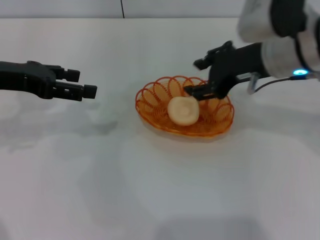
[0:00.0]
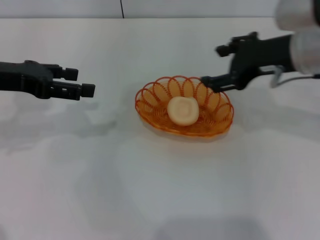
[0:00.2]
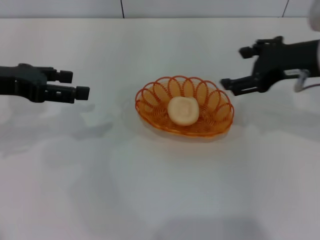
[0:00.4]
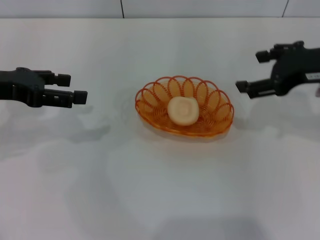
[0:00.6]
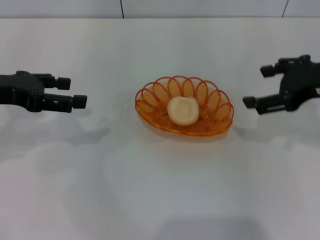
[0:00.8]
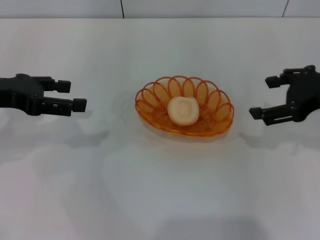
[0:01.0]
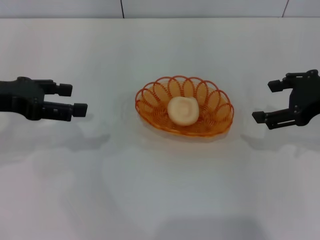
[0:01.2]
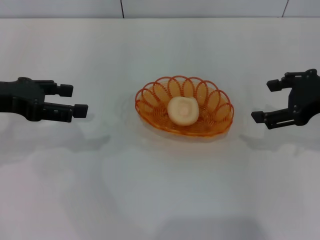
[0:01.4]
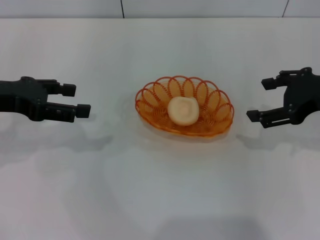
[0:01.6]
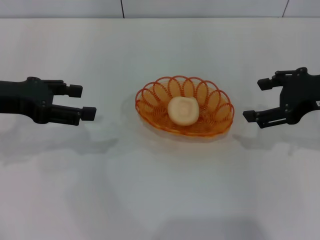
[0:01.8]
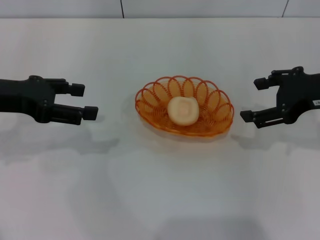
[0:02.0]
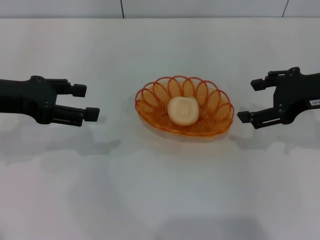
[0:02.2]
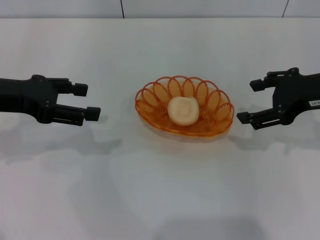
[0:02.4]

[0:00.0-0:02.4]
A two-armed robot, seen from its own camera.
0:00.0 to 0:01.2: The right gripper travels to the right by about 10 cm, and opens.
0:01.2 to 0:02.4: The grippers make only small movements.

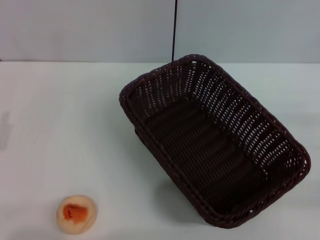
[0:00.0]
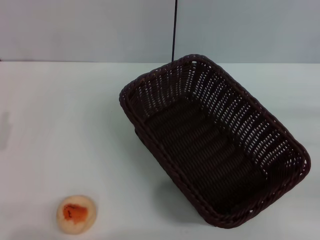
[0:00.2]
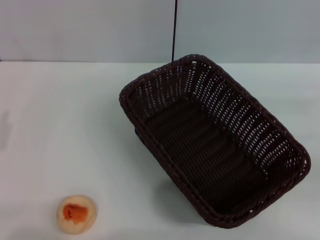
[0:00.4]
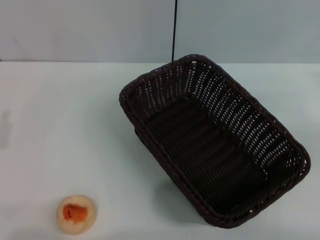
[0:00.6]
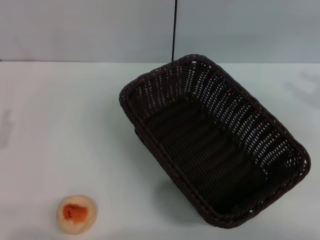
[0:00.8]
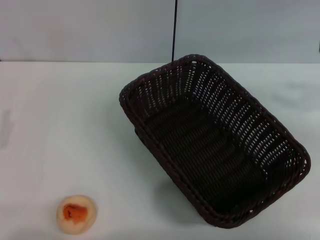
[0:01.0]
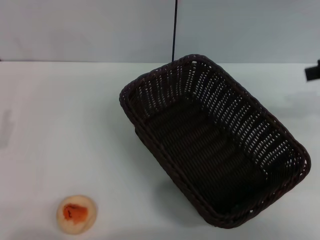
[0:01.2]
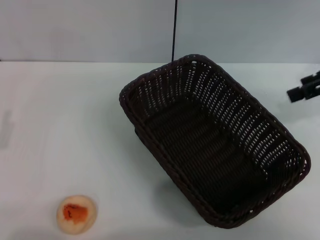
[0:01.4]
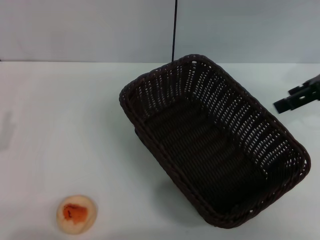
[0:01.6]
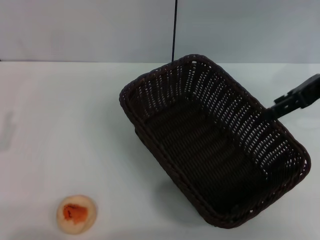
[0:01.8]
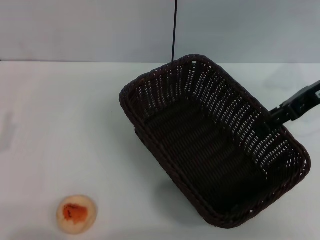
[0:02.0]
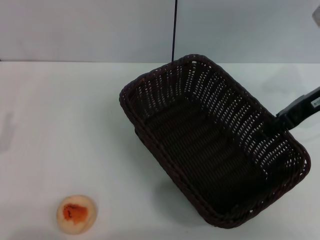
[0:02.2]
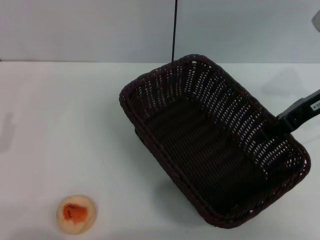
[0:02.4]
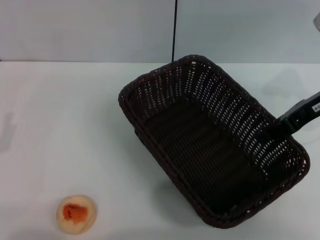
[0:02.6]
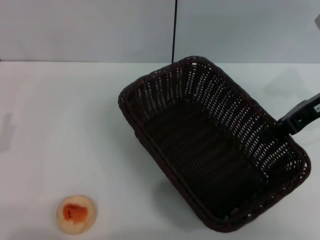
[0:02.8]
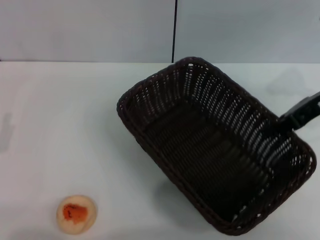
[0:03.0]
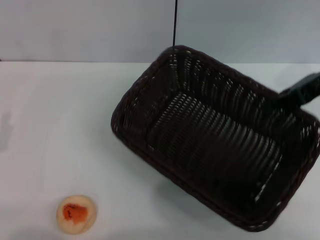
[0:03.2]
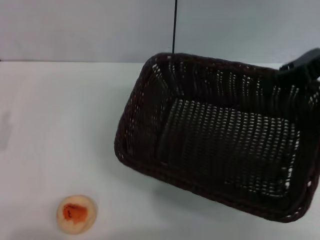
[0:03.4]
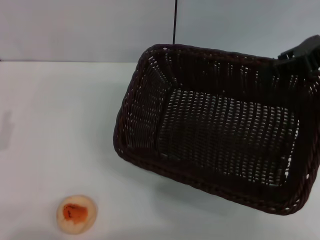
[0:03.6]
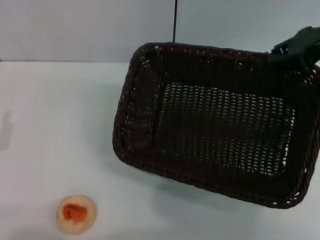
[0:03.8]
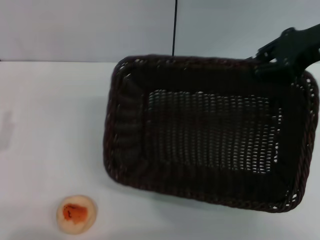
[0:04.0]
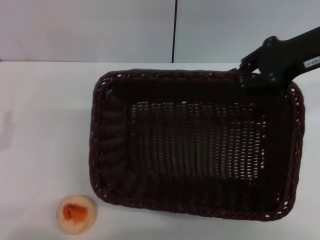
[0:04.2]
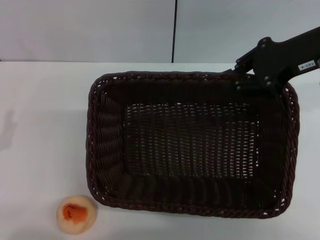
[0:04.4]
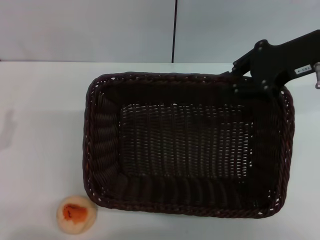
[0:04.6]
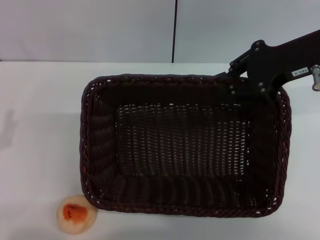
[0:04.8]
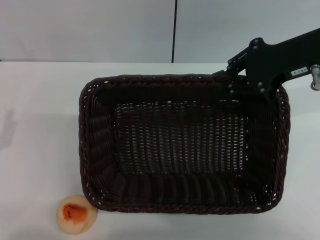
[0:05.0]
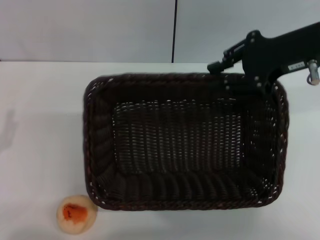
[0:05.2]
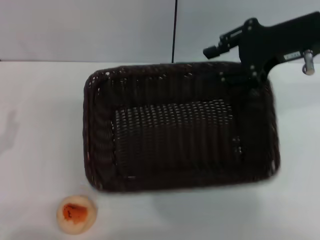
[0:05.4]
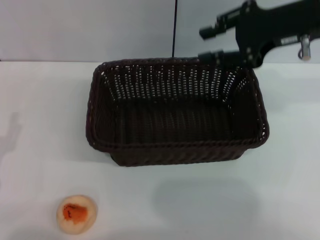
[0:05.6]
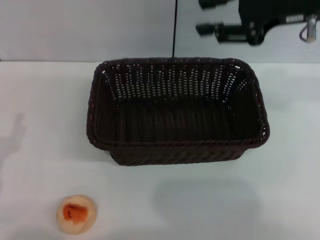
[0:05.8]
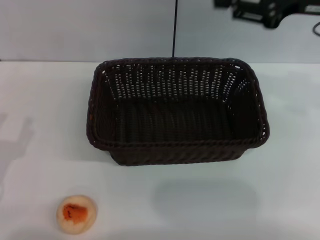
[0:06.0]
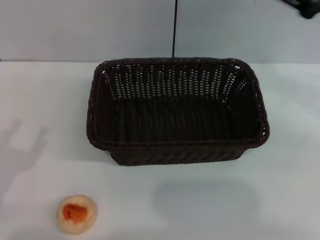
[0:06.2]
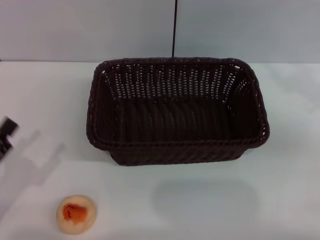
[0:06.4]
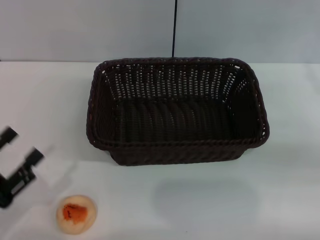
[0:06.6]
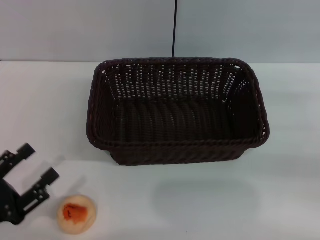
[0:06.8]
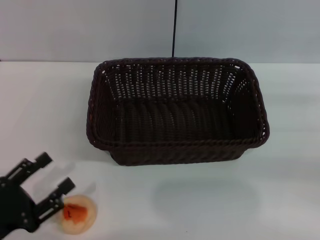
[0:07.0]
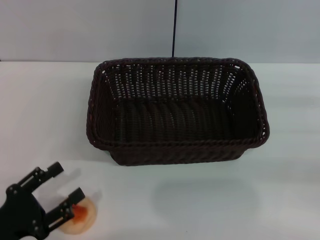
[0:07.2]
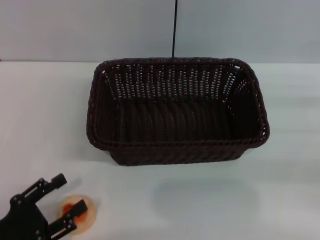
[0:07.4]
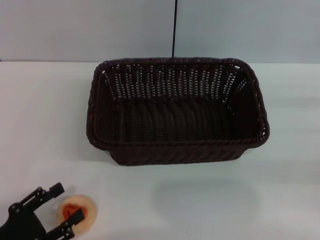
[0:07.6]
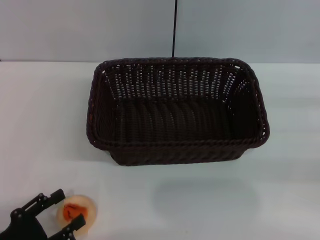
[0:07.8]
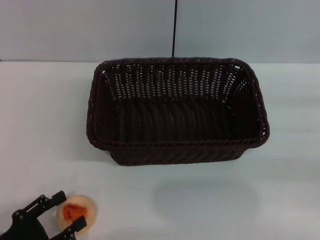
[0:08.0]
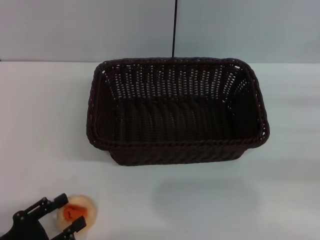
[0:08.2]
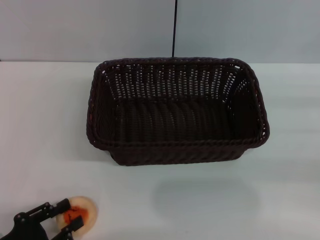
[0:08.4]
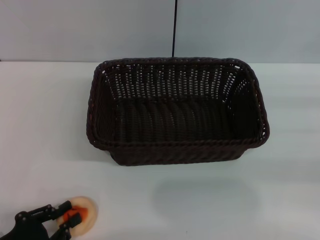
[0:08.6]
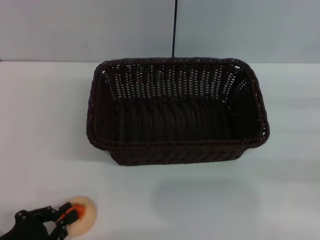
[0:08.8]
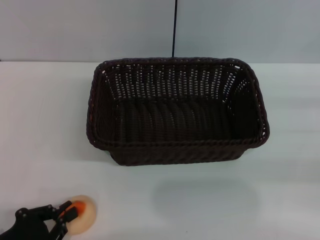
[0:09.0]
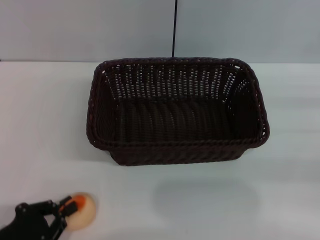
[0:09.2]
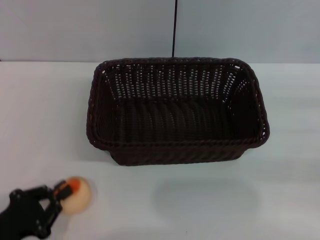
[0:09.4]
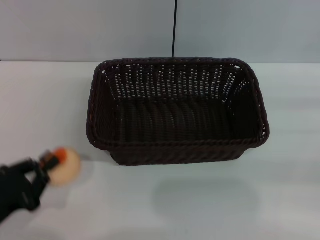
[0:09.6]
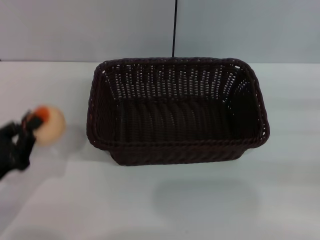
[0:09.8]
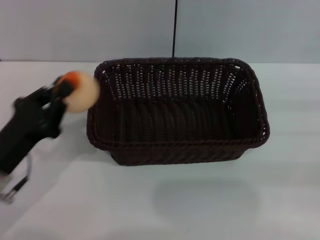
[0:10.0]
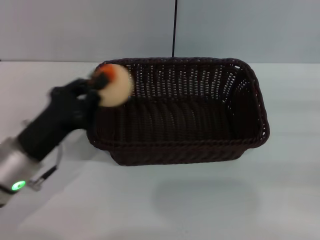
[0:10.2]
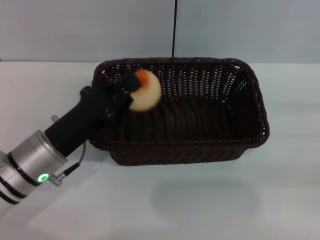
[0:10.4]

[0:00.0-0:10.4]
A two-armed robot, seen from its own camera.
Step, 0:00.0 to 0:05.8: Move the basket to the center of view with the right gripper.
Step, 0:06.0 to 0:09.6: Pick up the egg yolk pastry with the left gripper.
0:00.0 to 0:01.4: The right gripper moves upward, forward and to the left, roughly 25 cm, and opens its fingers.
0:01.4 to 0:03.0: The right gripper goes some 5 cm downward, and closes up.
0:03.0 to 0:04.4: The right gripper shifts approximately 5 cm upward.
0:04.4 to 0:06.0: The right gripper opens up.
0:06.0 to 0:07.4: The right gripper heads downward, to the right and backward, covering some 25 cm. The left gripper changes place by some 5 cm.
0:07.4 to 0:09.0: The left gripper closes up.
0:09.0 to 0:10.4: The left gripper travels forward and to the right by approximately 15 cm.

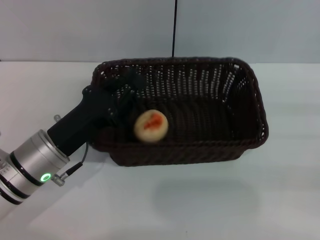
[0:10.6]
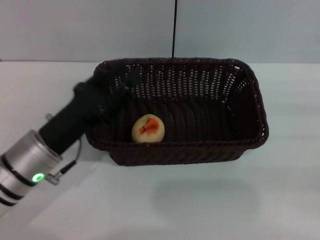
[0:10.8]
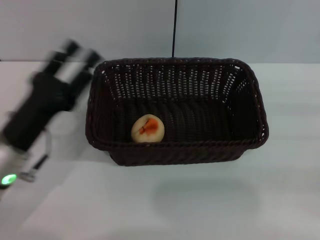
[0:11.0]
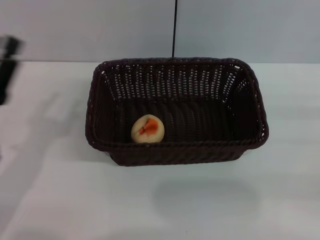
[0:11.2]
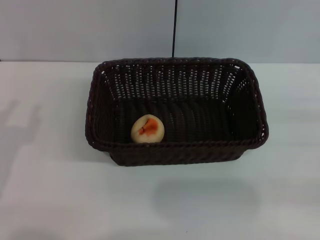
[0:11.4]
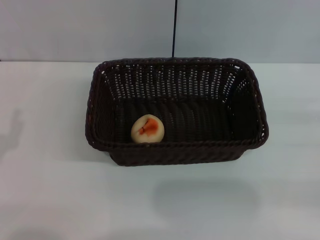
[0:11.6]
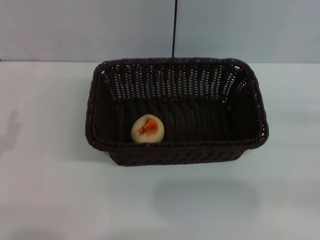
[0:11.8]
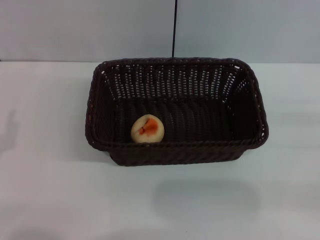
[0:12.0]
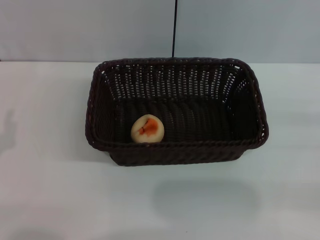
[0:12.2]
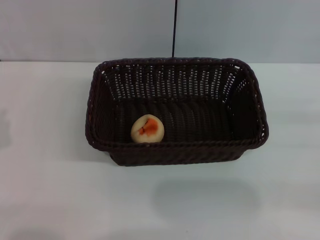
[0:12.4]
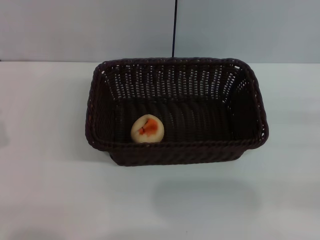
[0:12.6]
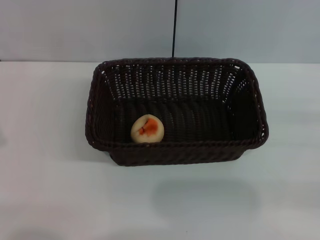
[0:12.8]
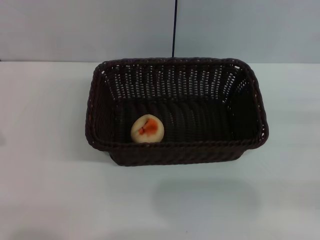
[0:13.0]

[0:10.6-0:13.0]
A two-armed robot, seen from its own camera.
0:10.6 to 0:11.8: The left gripper goes roughly 15 cm to the left and backward, and opens.
